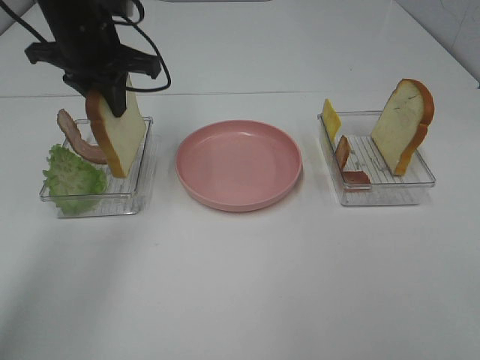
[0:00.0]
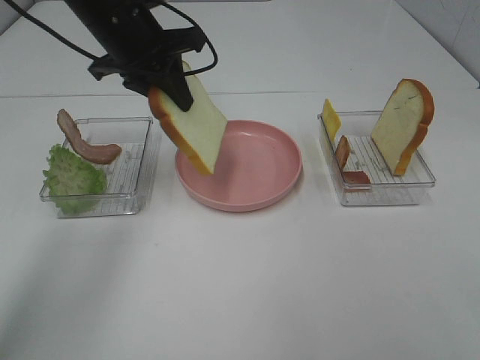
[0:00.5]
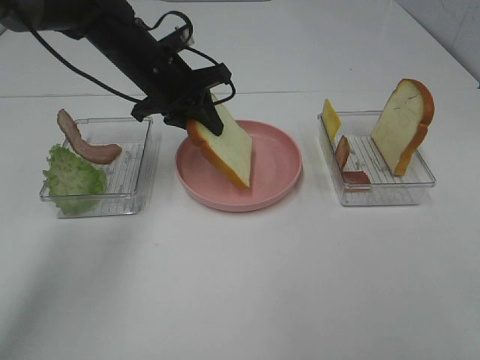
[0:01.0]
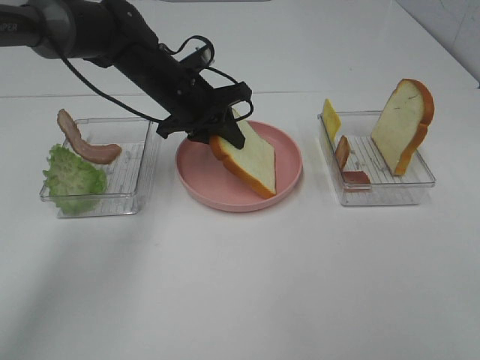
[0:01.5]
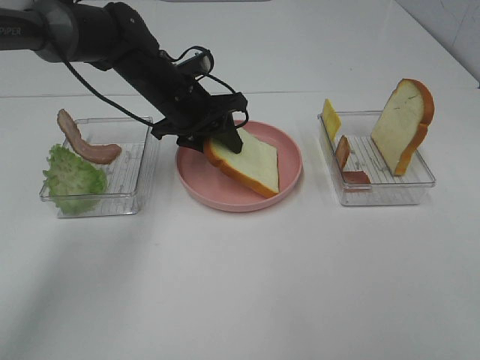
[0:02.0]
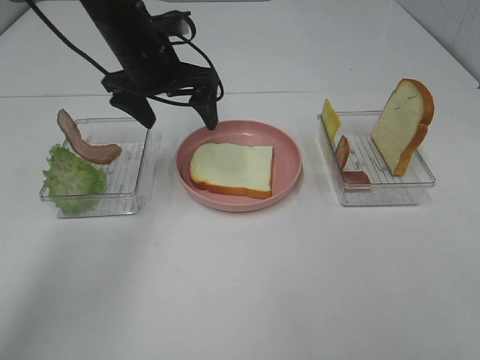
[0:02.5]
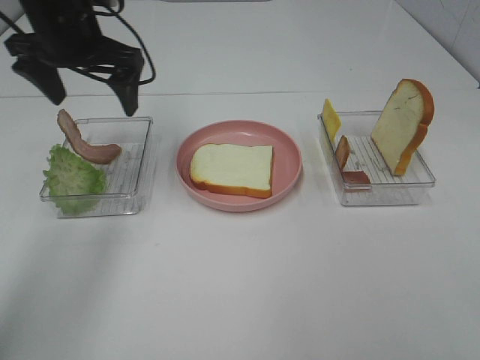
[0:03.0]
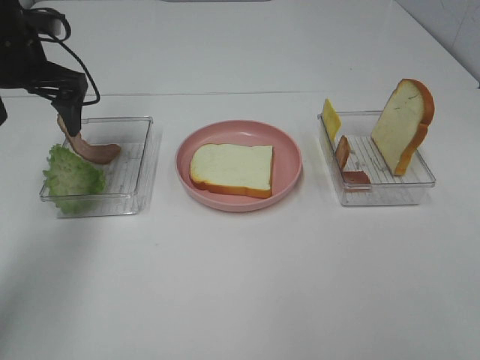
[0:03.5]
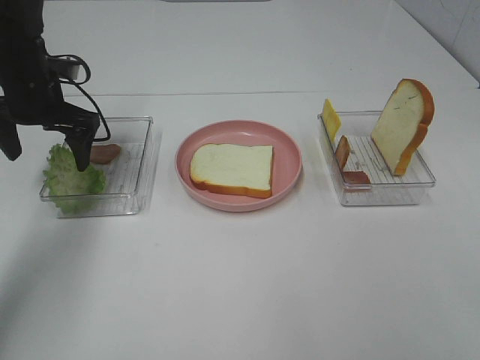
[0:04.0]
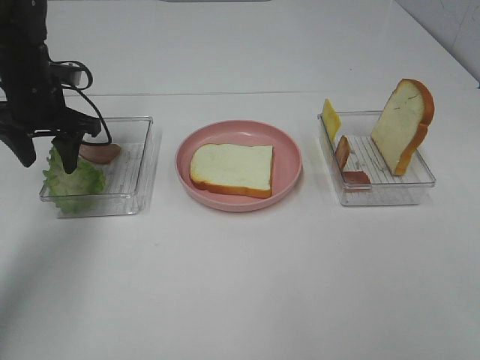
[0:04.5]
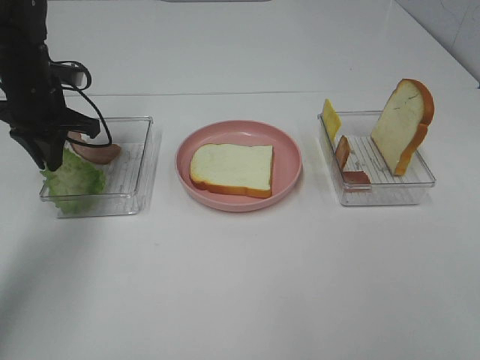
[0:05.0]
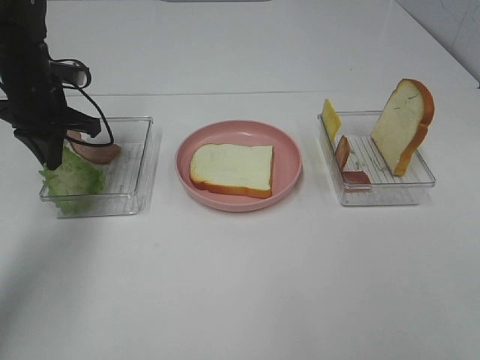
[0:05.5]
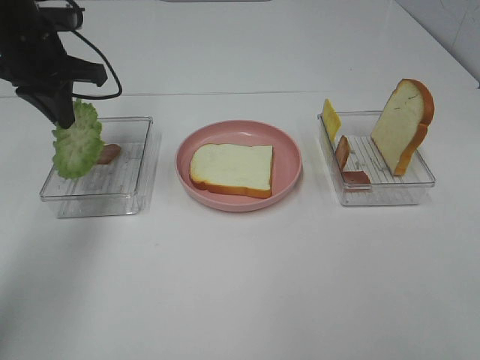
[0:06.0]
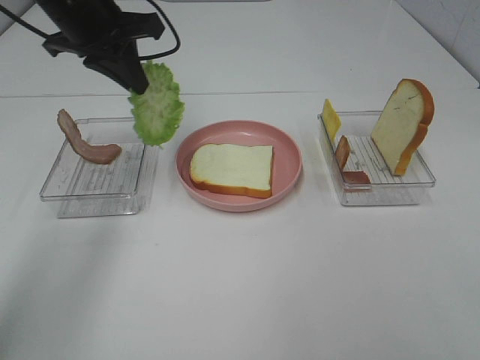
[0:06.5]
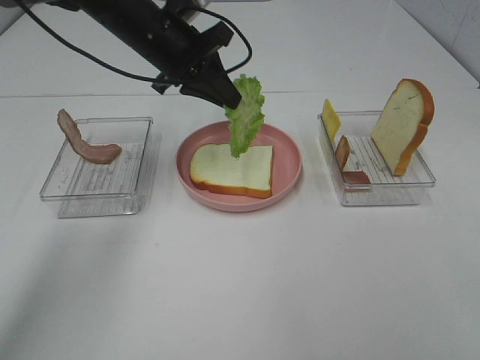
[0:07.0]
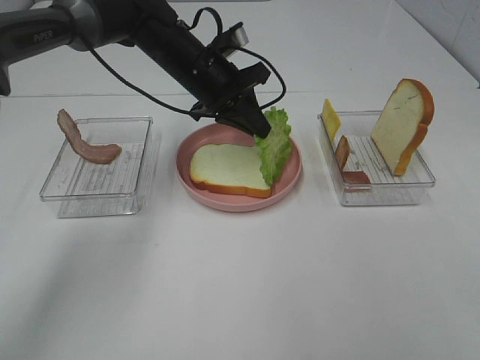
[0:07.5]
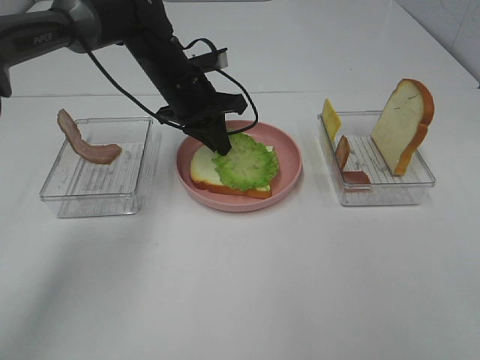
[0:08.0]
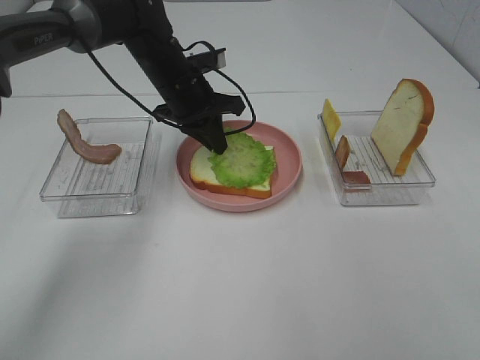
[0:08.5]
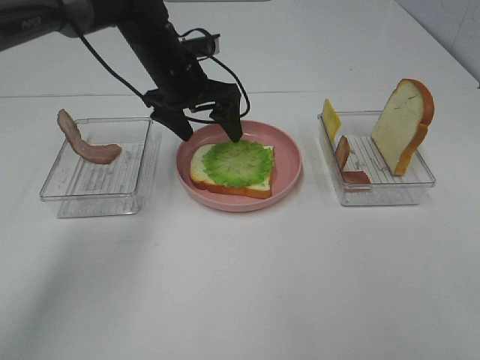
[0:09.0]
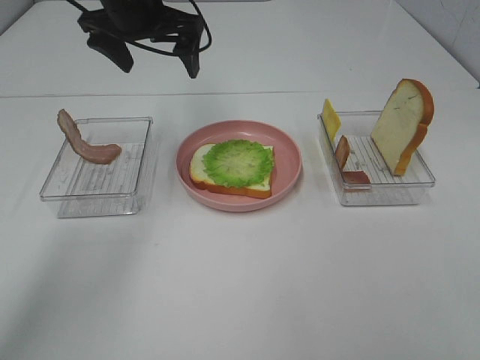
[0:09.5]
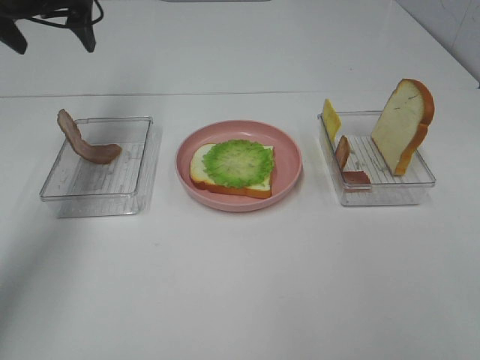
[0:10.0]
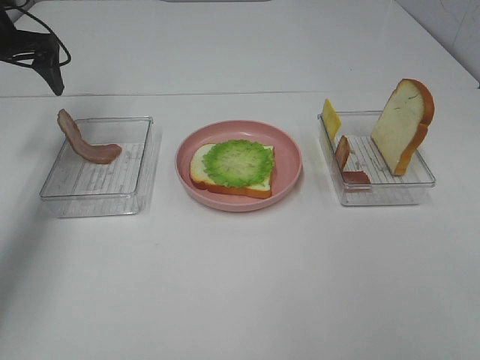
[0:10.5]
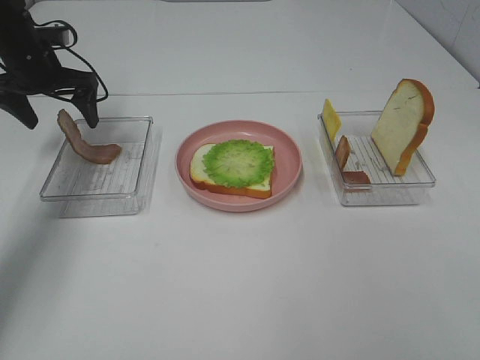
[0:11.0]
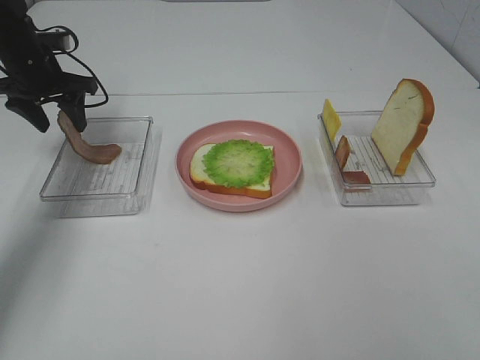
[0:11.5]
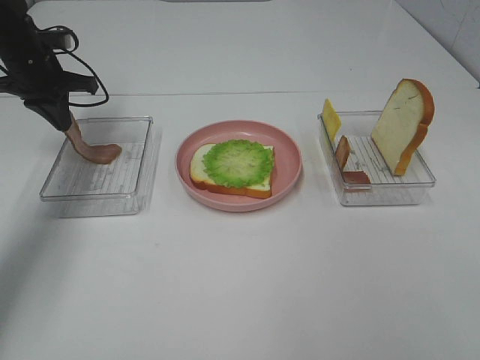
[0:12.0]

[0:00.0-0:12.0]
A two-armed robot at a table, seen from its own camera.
Task of the whole recording: Make sandwiches.
Step, 0:00.0 to 0:02.5: Left hand:place the bread slice on the plate.
Step, 0:03.0 to 0:05.5: Left hand:grab the lettuce slice.
Step, 0:06.0 to 0:09.0: Left hand:place the lettuce slice on the bread slice.
Step, 0:09.5 to 0:12.0: Left hand:grab the bacon.
0:00.0 to 0:02.0: The left gripper shifts about 15 cm downward and to the right.
0:02.0 to 0:04.0: The left gripper is displaced to the left by some 15 cm, and opens its fingers.
0:04.0 to 0:06.0: The left gripper moves upward, approximately 5 cm, and closes its fingers.
0:06.0 to 0:08.0: The left gripper is displaced to the right and downward by about 20 cm.
0:08.0 to 0:10.0: The left gripper travels to the left and upward by approximately 25 cm, and opens its fingers.
0:10.0 to 0:12.0: The left gripper heads downward, covering some 10 cm, and closes.

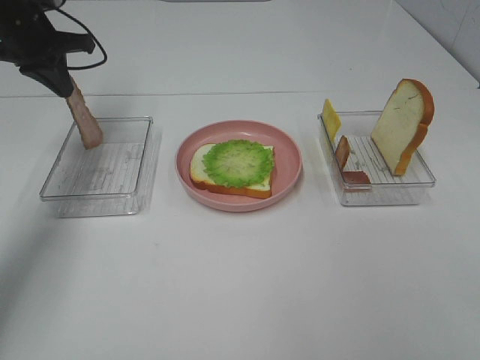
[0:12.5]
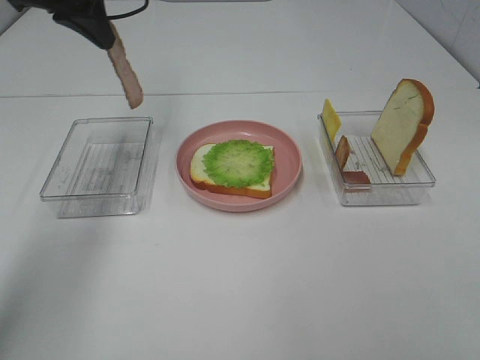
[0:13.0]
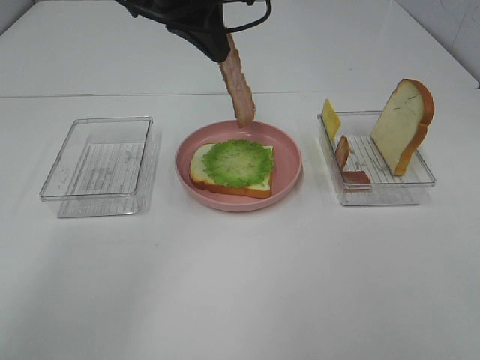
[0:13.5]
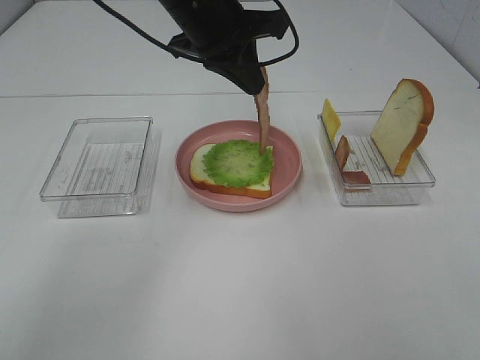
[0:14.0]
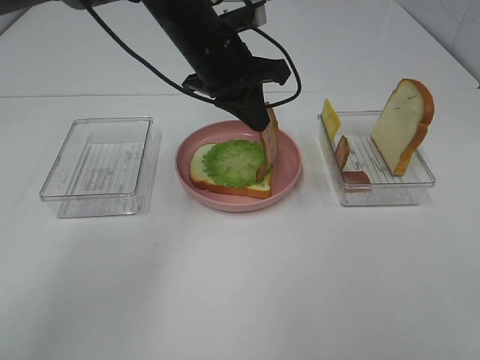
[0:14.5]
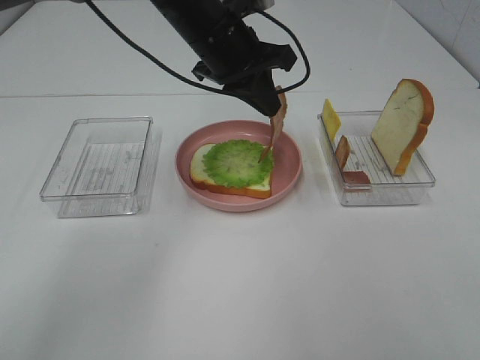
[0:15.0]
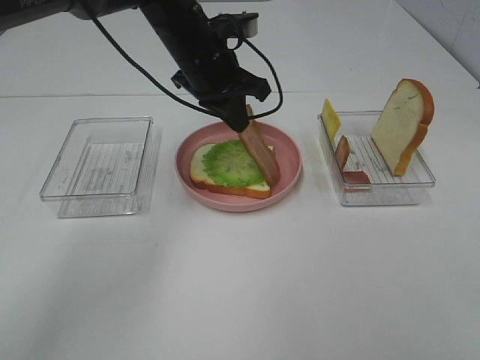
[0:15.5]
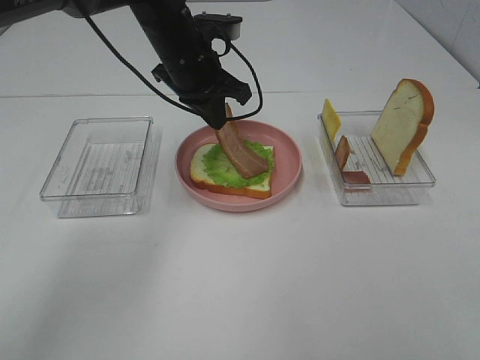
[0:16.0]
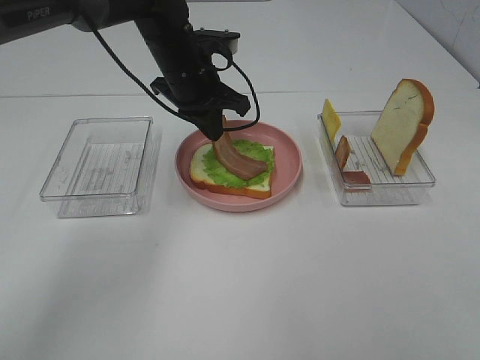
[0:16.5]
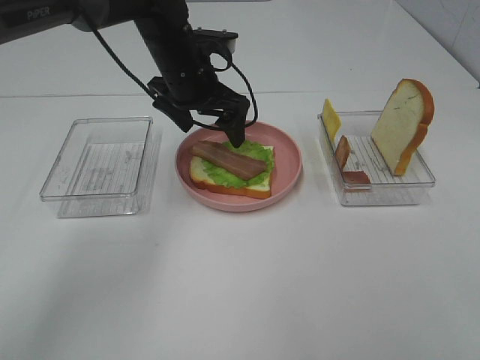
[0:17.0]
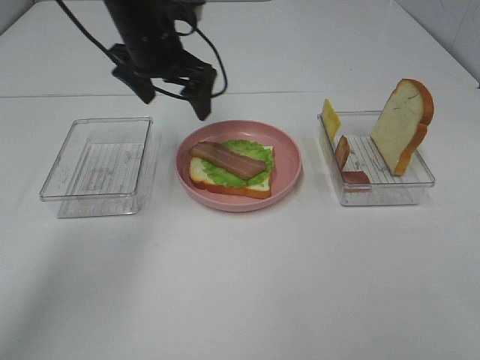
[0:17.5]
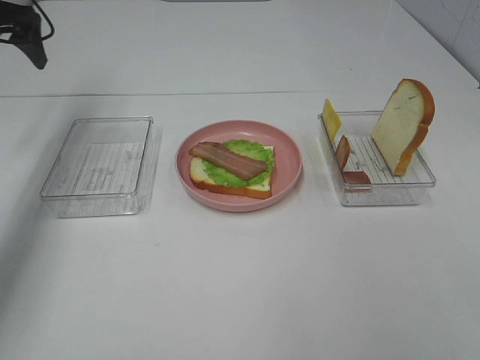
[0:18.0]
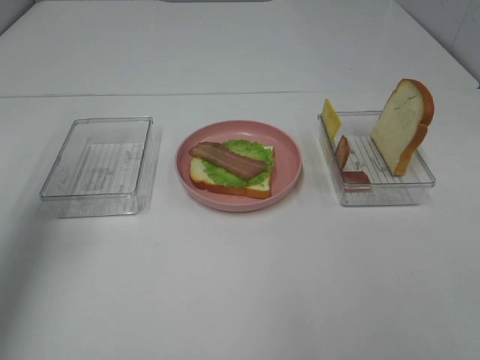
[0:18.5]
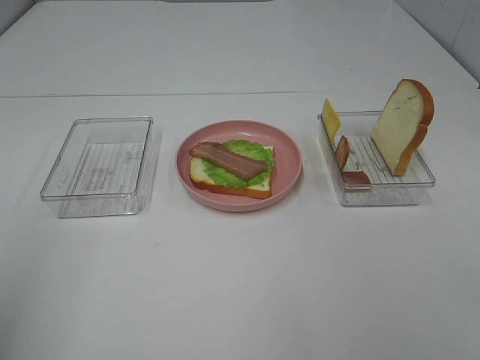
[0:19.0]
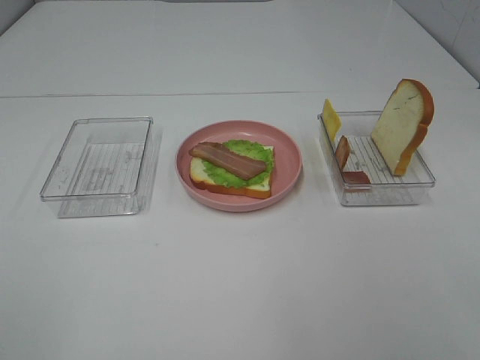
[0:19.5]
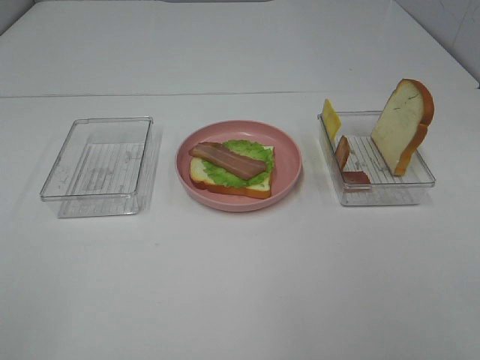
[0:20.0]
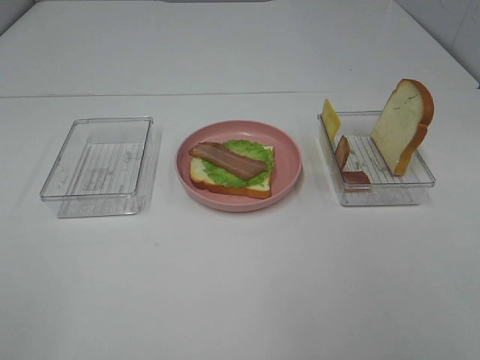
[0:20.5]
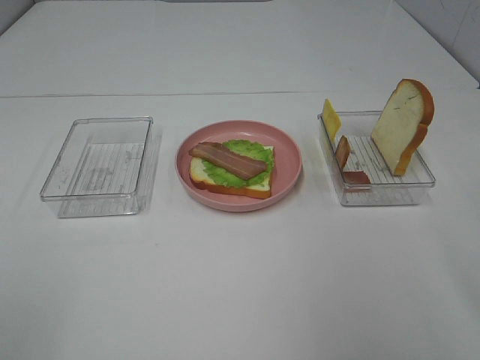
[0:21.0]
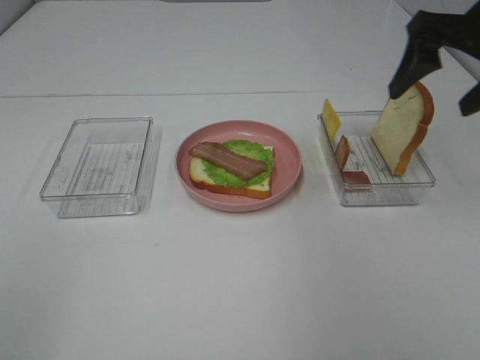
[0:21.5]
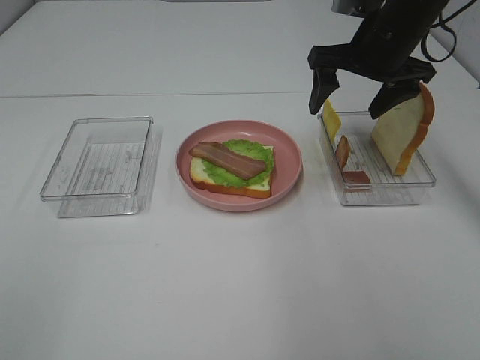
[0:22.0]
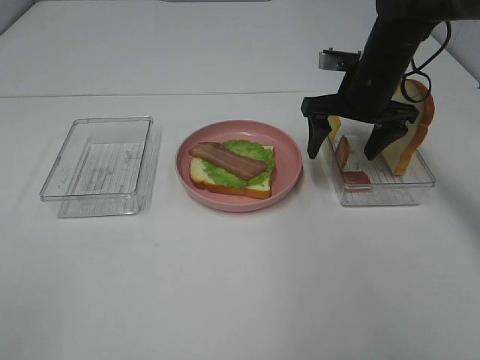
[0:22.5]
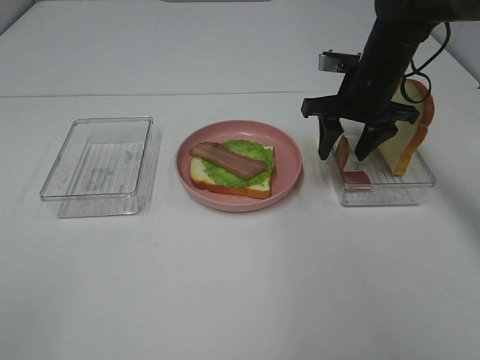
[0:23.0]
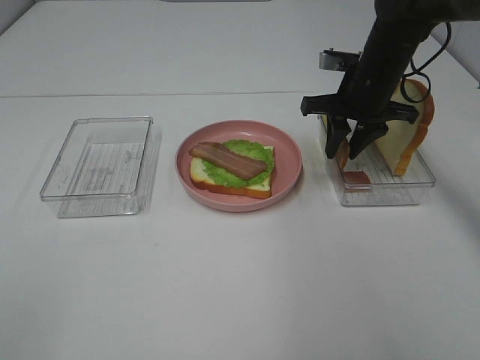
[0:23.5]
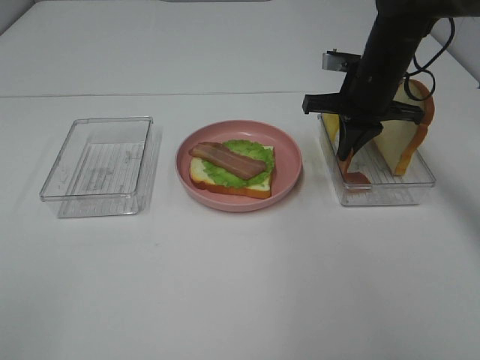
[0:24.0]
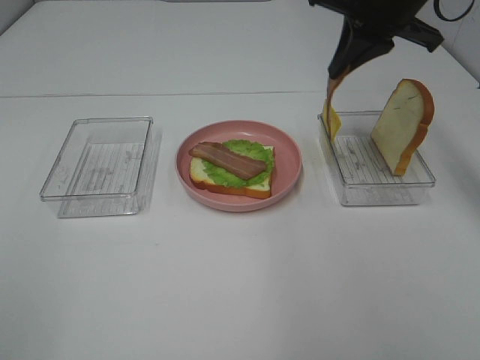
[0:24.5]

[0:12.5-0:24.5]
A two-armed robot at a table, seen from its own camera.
Task of the whole recording: Make sandwiches.
Step, 0:12.5 to 0:17.0: Left hand:place bacon on lettuce slice.
Step, 0:17.5 to 0:23.5: Right hand:grab the bacon.
0:12.5 to 0:14.5: The left gripper shifts approximately 25 cm to the right.
0:14.5 to 0:16.5: The left gripper changes place by roughly 5 cm.
0:16.5 to 0:18.5: The left gripper is displaced to the left, backward and upward by roughly 35 cm, and opens.
0:18.5 to 0:20.5: The left gripper travels backward by about 30 cm.
0:20.5 to 0:22.5: The right gripper heads forward, covering roughly 40 cm.
0:22.5 to 0:24.5: The right gripper travels upward by about 15 cm, and closes up.

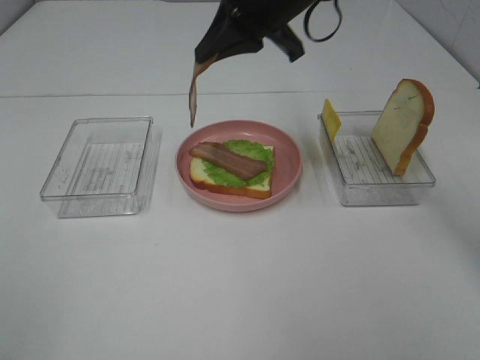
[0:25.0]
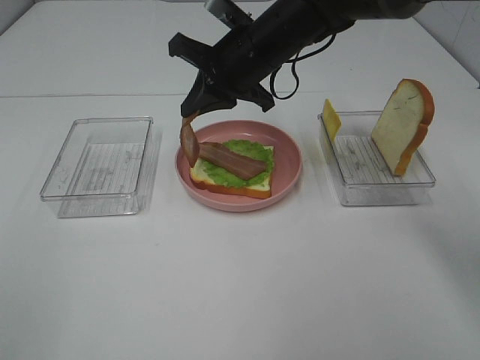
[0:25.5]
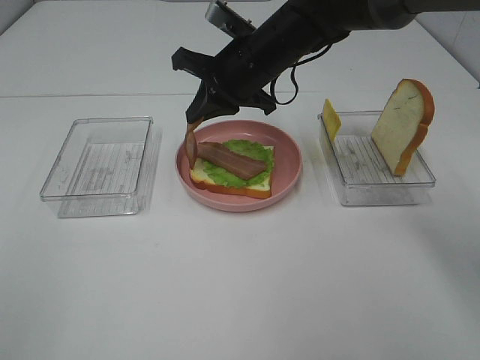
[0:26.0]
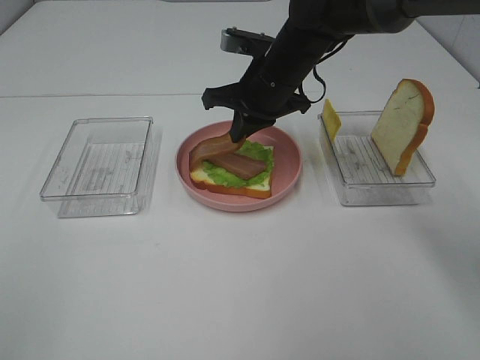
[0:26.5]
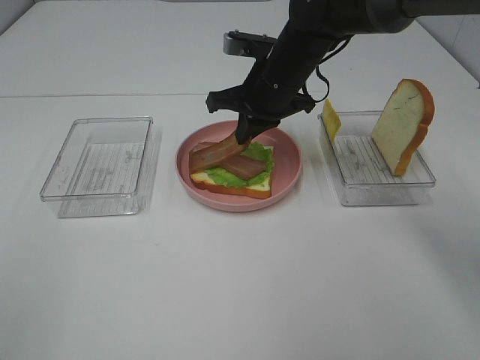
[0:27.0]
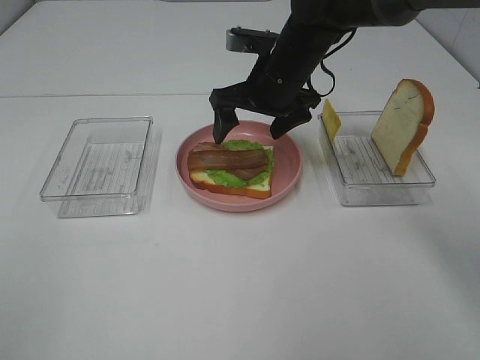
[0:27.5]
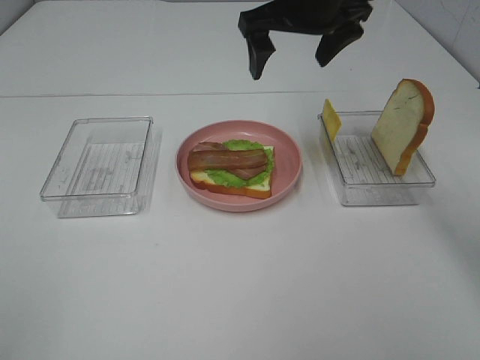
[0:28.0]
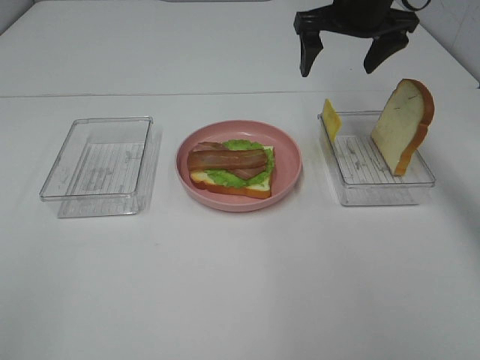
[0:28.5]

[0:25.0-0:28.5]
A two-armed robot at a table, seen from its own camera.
Task of the whole recording: Make sandwiches.
Step, 0:25.0 to 0:27.5: Right hand:place bacon on bacon.
0:25.0 to 0:27.0: The right gripper travels downward by approximately 10 cm.
0:27.0 to 0:28.5: The right gripper is displaced to the right and upward by some 15 cm, and opens its fingers.
